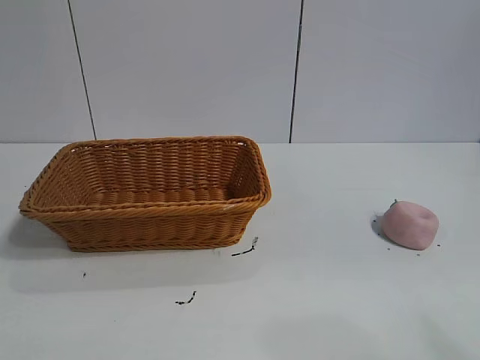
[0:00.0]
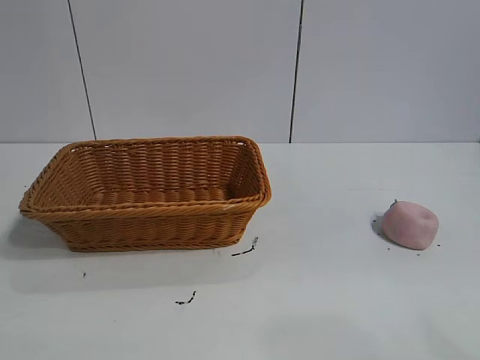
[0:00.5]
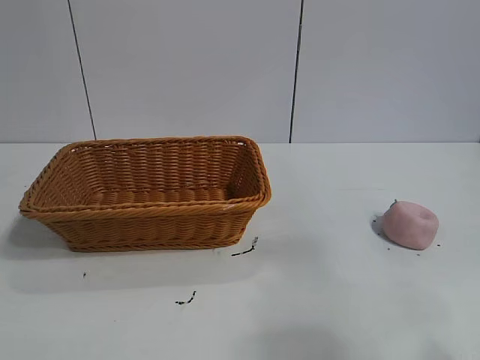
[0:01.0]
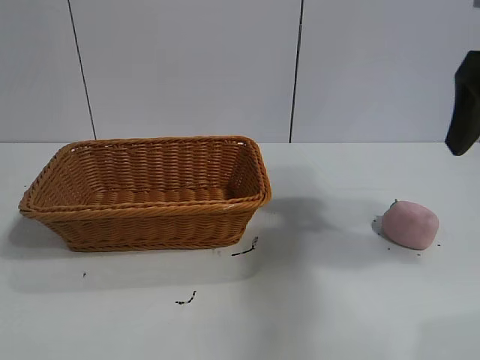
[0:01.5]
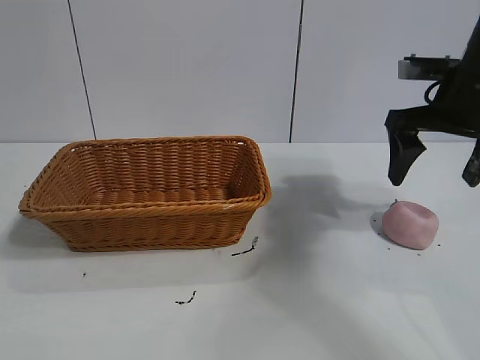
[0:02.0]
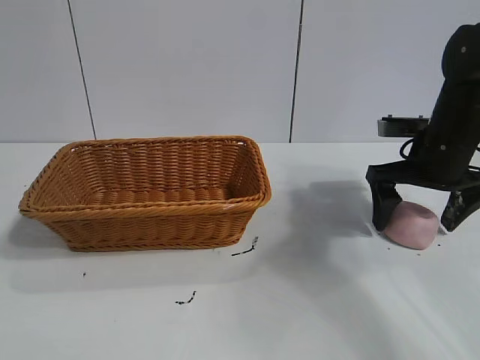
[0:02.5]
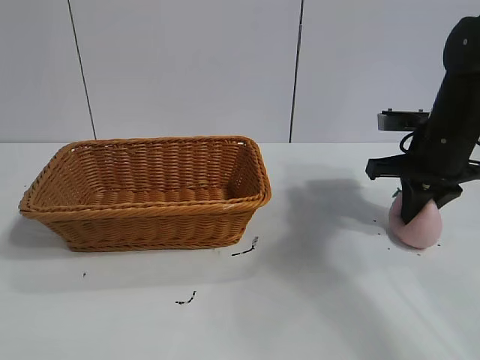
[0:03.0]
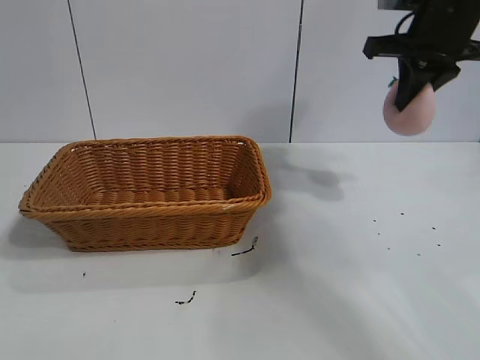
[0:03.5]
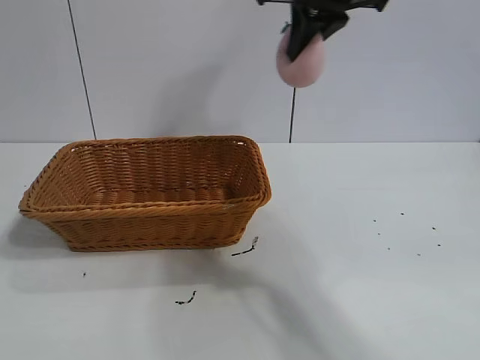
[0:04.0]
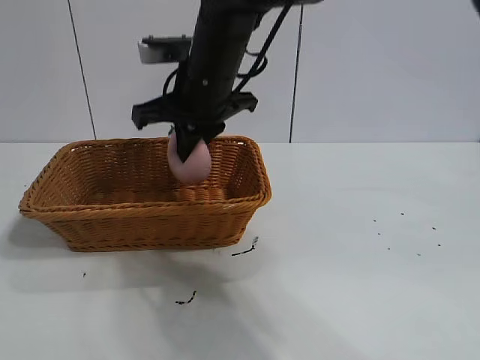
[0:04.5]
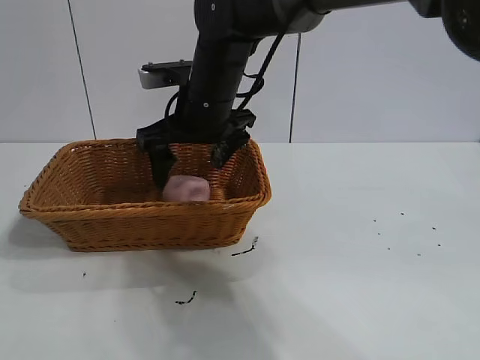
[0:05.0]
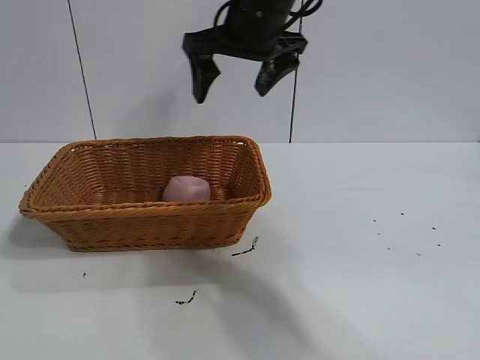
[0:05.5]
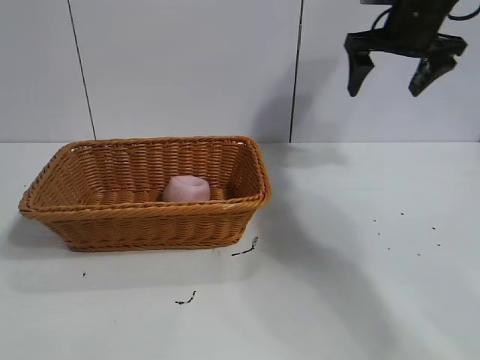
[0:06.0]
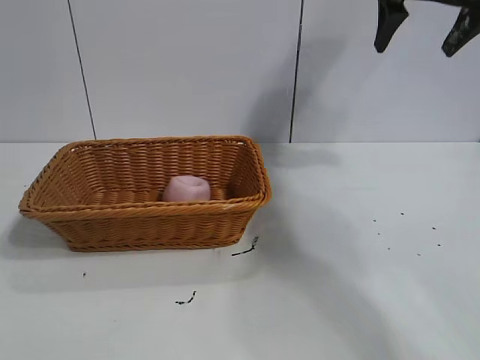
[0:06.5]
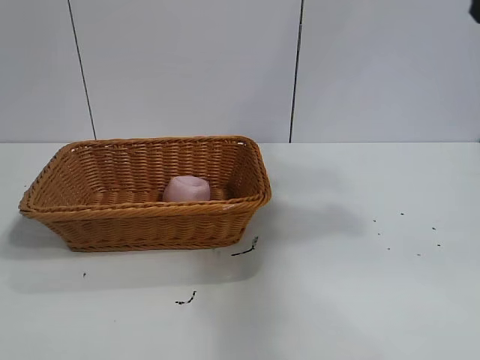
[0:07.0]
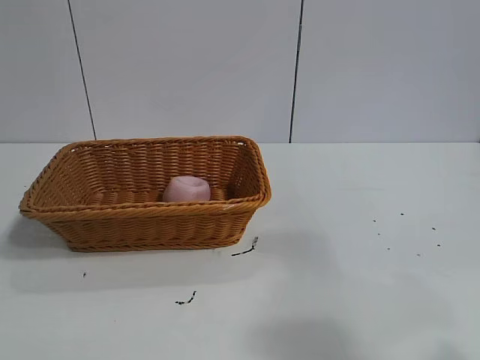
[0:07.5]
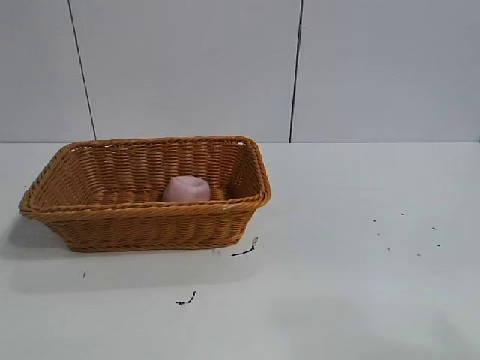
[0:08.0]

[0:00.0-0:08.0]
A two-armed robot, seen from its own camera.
Task of the whole recording: pick up the peach and put it into the basket.
Step, 0:01.0 to 0:02.5: Grasp the peach with right gripper.
Step, 0:03.5 to 0:04.5: Place the peach in the basket with right gripper.
